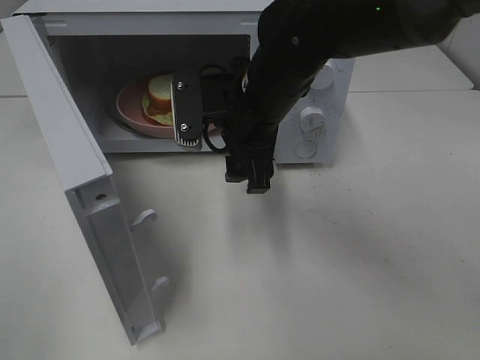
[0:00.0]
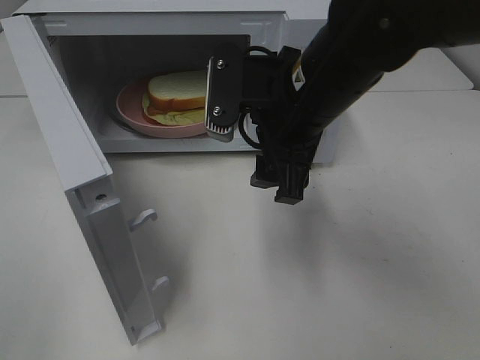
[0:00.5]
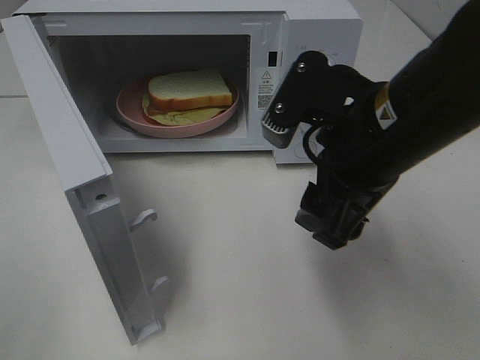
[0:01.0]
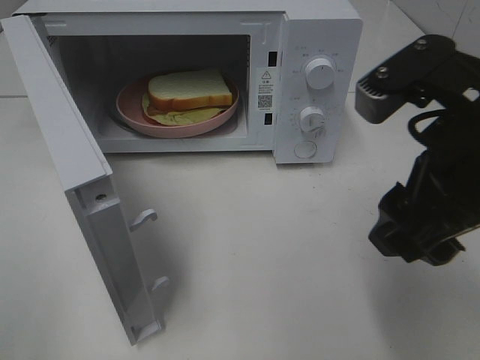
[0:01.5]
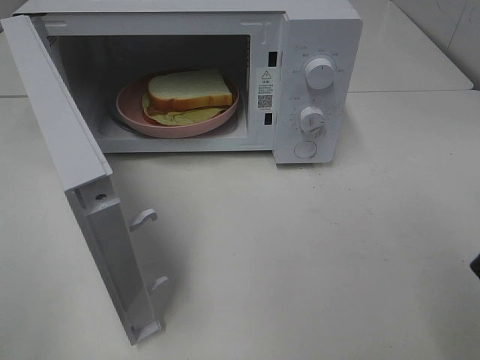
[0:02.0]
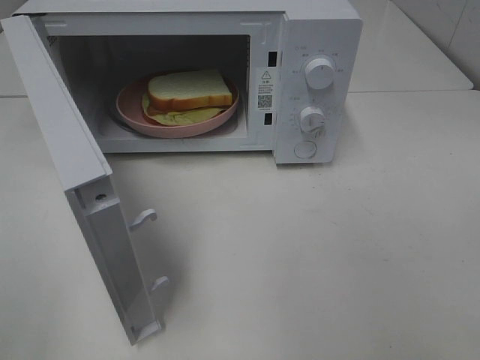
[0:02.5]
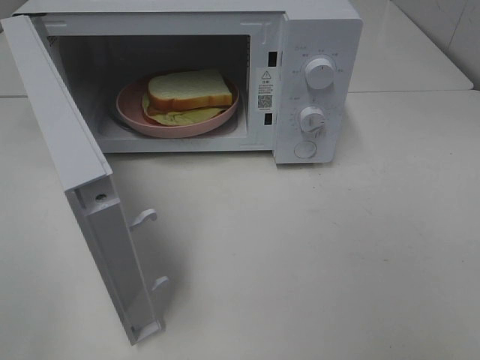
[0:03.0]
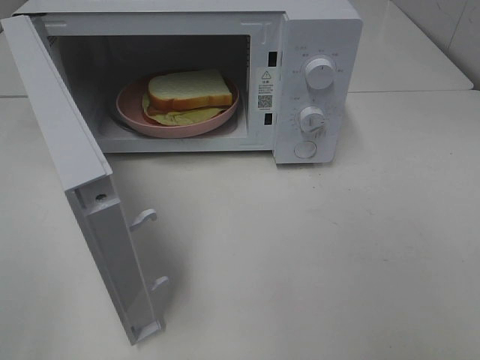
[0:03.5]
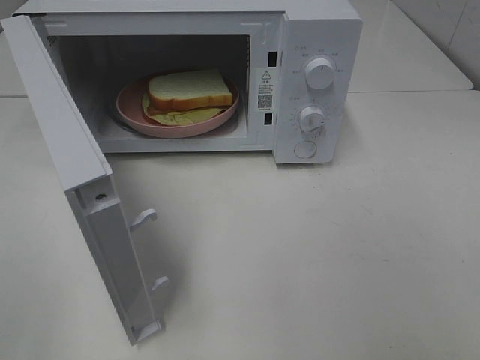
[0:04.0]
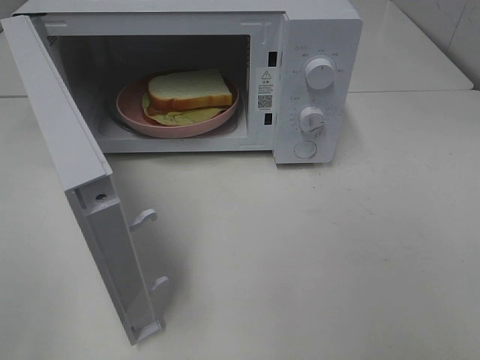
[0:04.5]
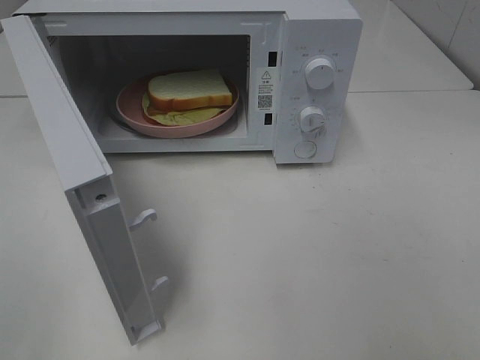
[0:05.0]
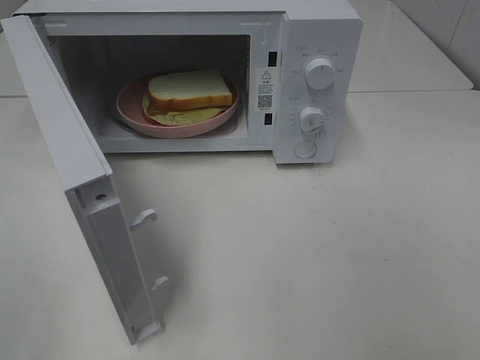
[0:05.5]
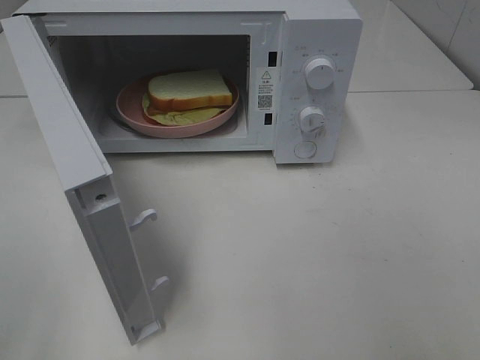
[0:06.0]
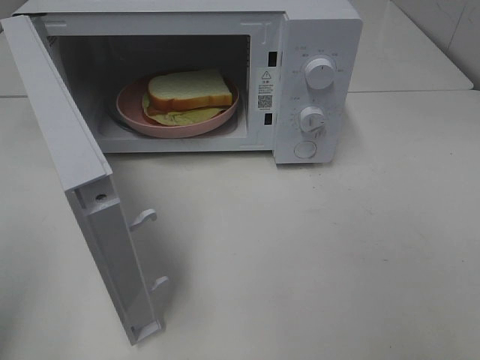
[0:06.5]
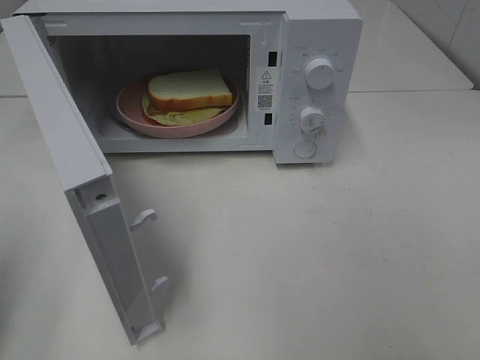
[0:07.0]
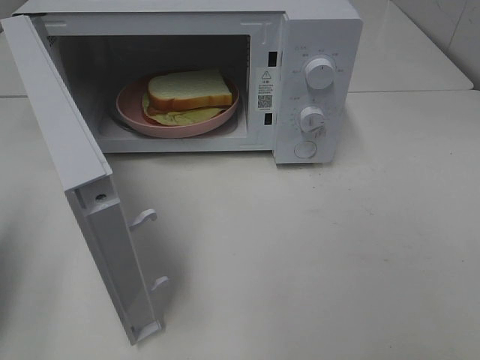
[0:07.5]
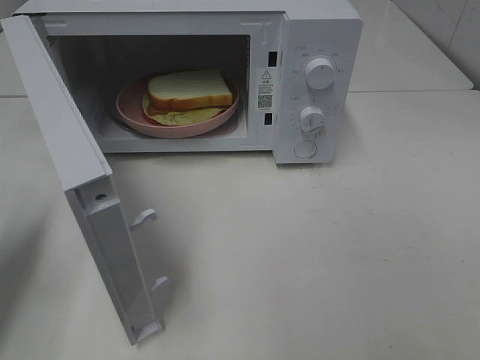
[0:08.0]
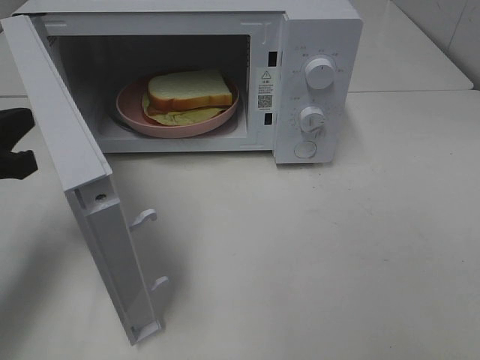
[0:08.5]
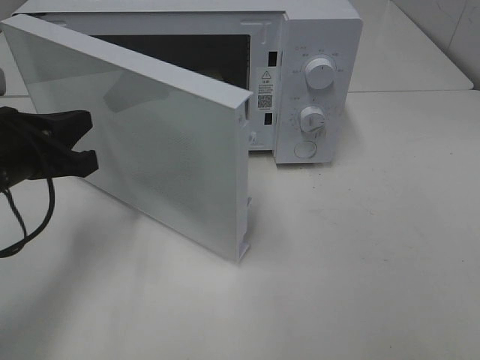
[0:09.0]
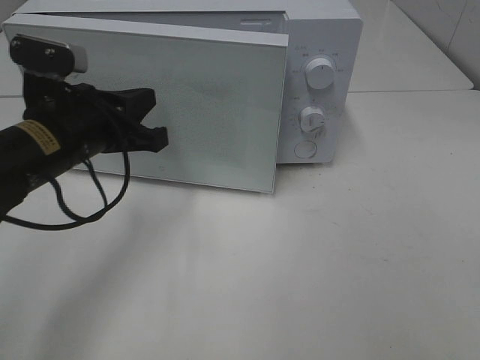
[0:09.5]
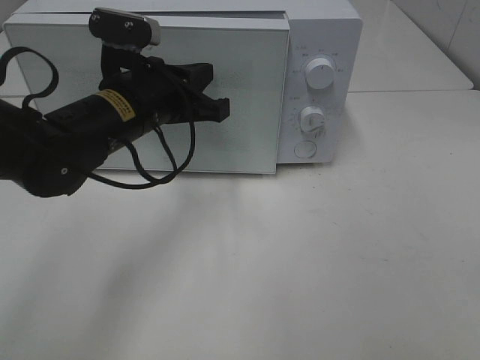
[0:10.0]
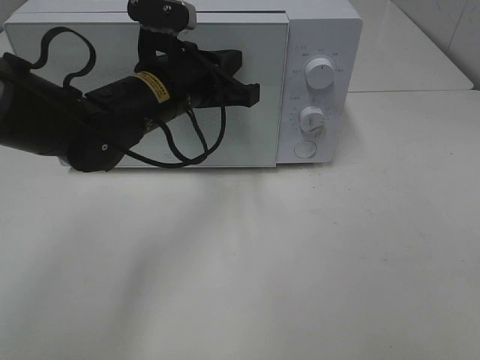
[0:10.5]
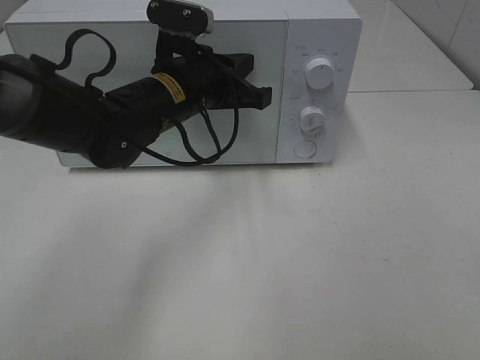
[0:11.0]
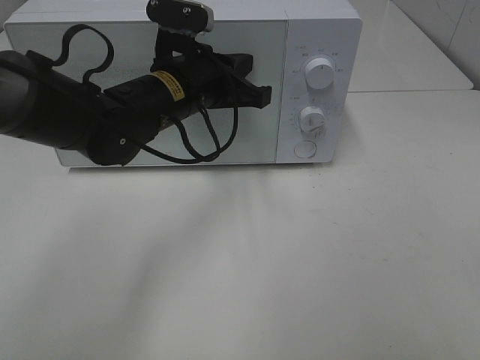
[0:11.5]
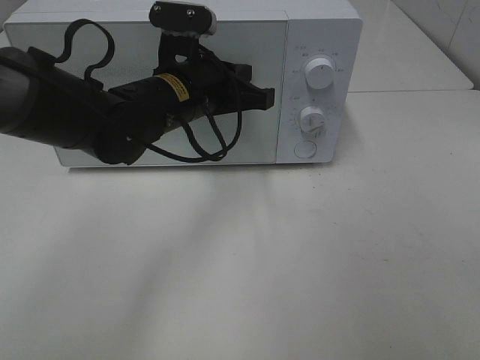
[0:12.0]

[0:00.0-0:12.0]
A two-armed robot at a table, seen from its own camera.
Task of the whole recording: Heat Sandwich.
Step, 0:00.0 to 0:12.0: Left hand: close the microwave door.
0:00.0 to 0:02.0: The right gripper shifts approximately 30 cm backward, to the right and upward.
0:02.0 to 0:04.0: The right gripper heads backward and to the right, covering approximately 15 cm.
0:06.0 to 0:08.0: The left gripper goes roughly 20 cm forward and downward, and closes up.
0:08.0 to 0:10.0: The left gripper is displaced to the right and forward by roughly 25 cm.
0:10.0 to 0:12.0: The left gripper moves roughly 5 cm.

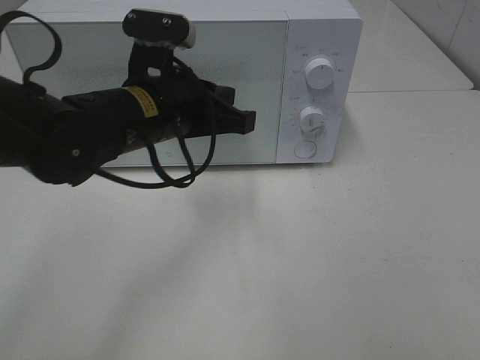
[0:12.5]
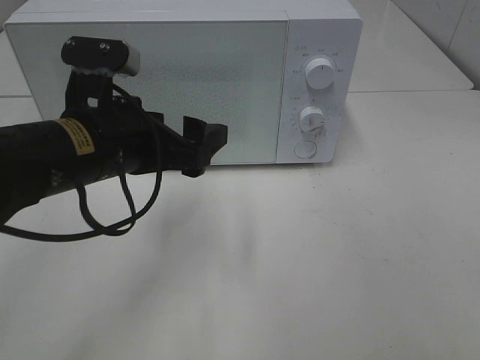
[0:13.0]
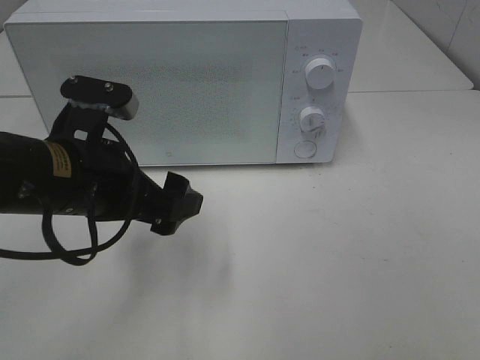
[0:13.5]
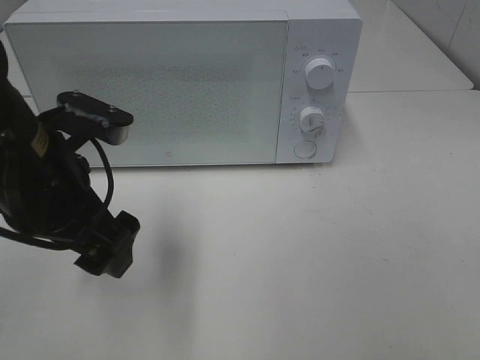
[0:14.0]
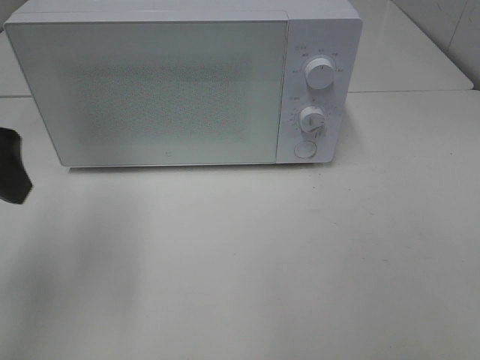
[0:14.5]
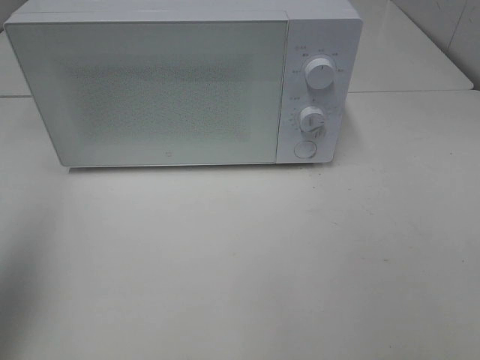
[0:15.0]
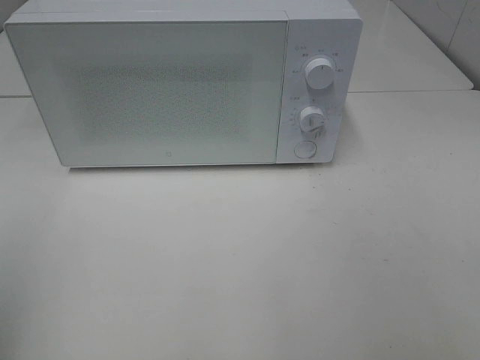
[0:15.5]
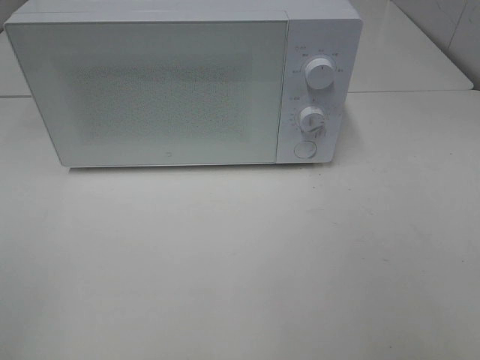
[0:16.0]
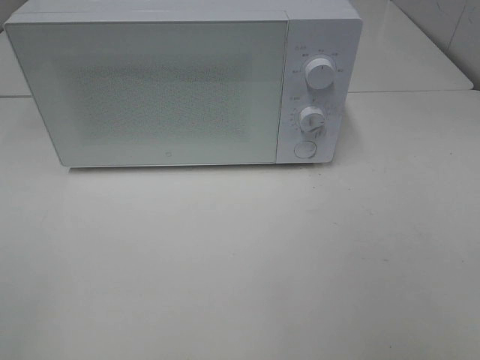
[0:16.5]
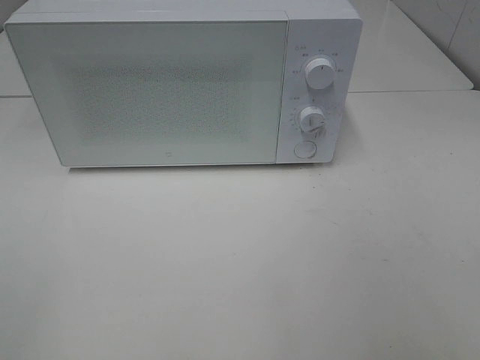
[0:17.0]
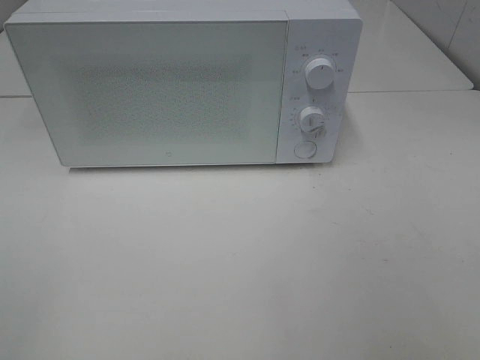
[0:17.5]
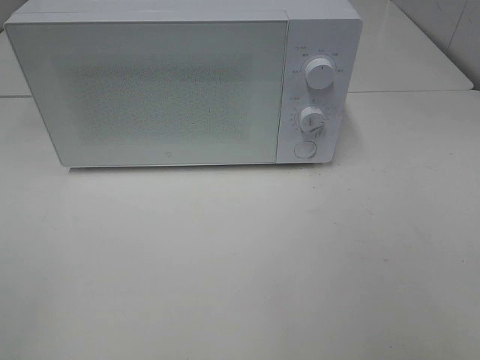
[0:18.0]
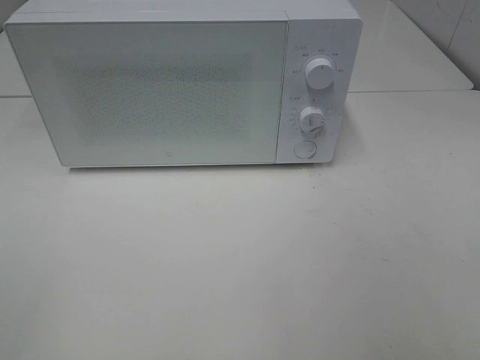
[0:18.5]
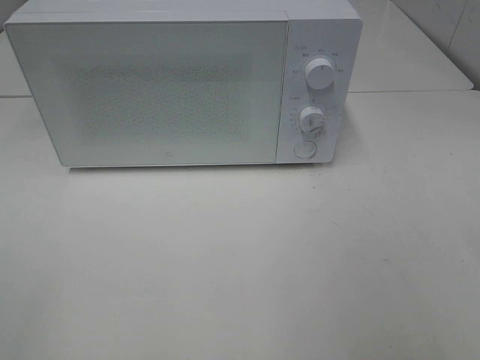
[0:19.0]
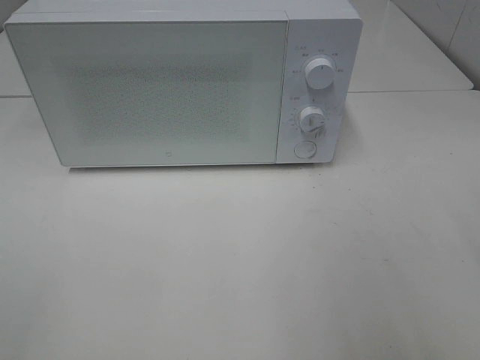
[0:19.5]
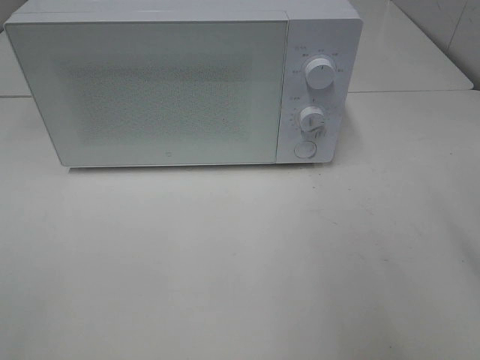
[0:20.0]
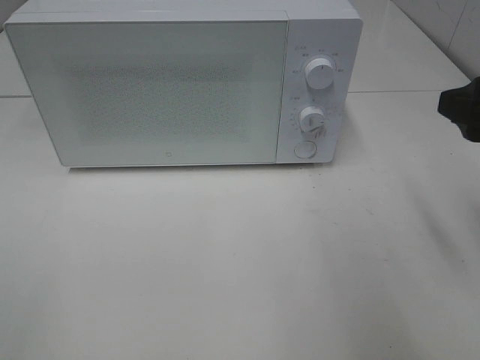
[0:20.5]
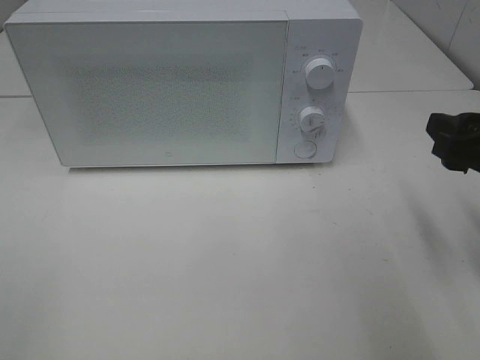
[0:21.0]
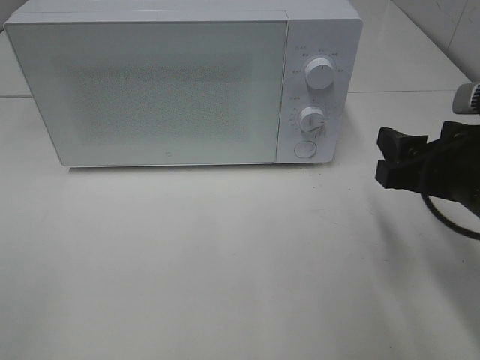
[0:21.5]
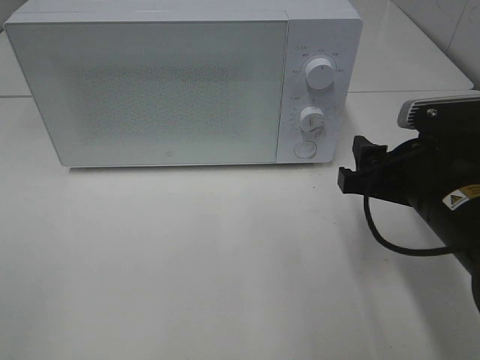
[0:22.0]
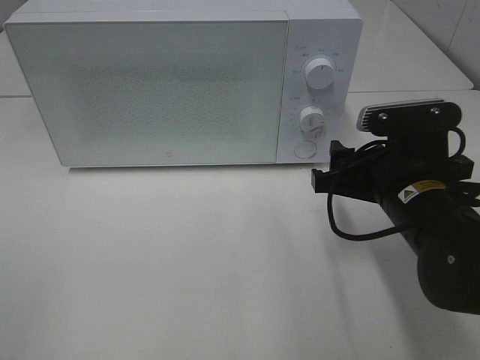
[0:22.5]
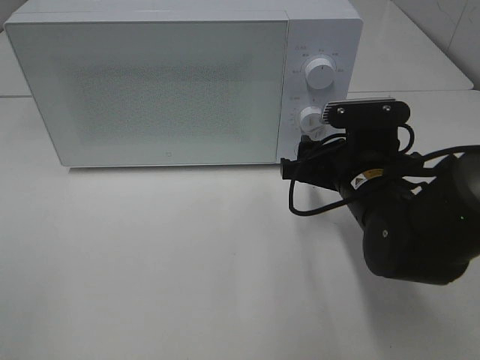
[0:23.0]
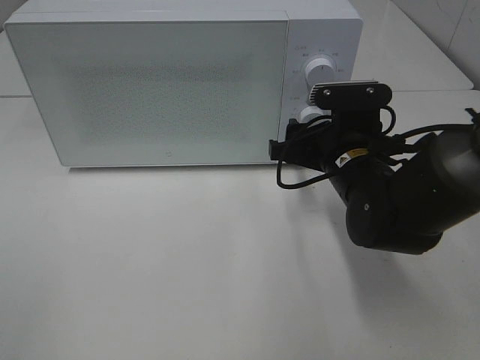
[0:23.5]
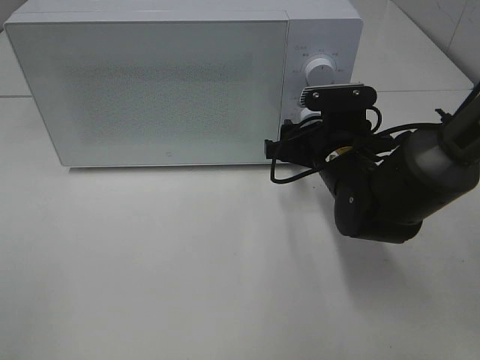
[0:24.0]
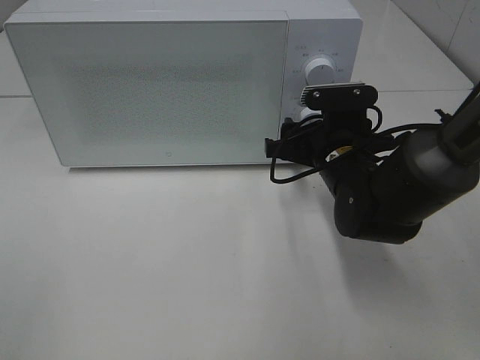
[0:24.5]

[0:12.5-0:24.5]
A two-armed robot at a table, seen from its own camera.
Task of the whole recording: Heat Sandwich.
0:12.5 to 0:14.5: The left gripper goes some 20 cm to the left, upward and backward, and opens its fingers.
0:14.5 to 0:16.5: The left gripper travels backward by some 20 cm.
0:16.5 to 0:18.5: Neither gripper changes place.
0:18.5 to 0:20.5: The right gripper goes approximately 20 cm forward.
0:20.5 to 0:22.5: The right gripper goes about 15 cm downward and to the left.
0:22.5 to 0:24.5: The right gripper goes about 10 cm forward.

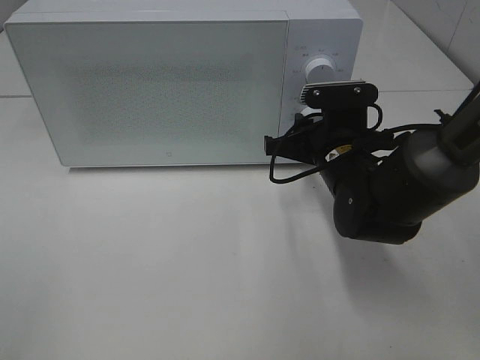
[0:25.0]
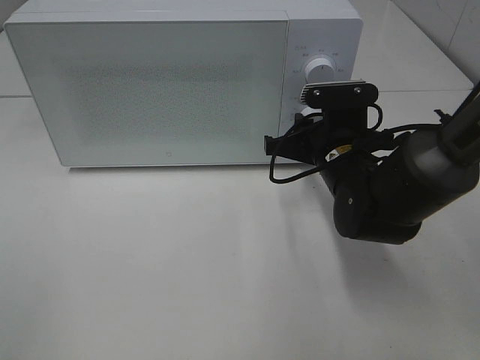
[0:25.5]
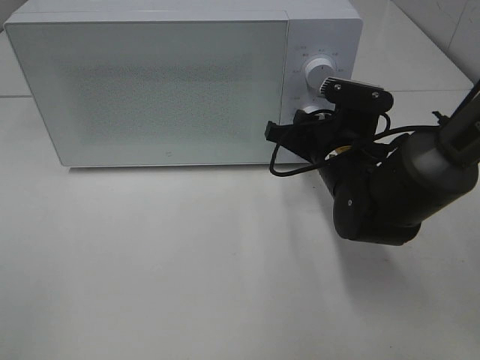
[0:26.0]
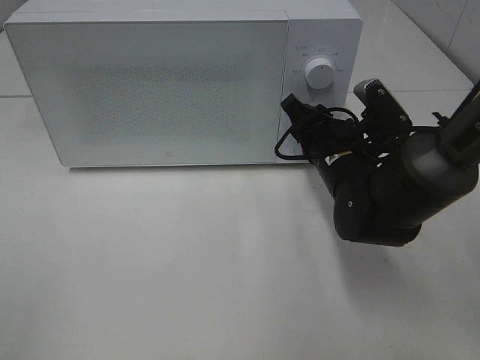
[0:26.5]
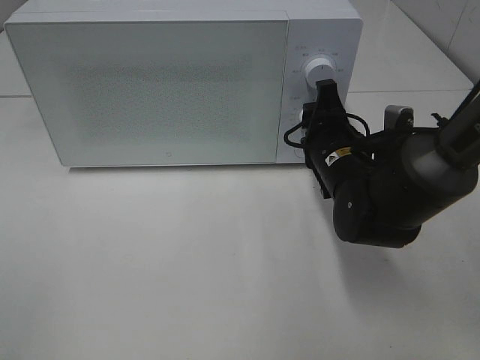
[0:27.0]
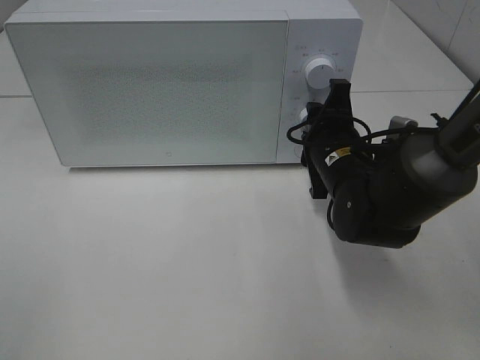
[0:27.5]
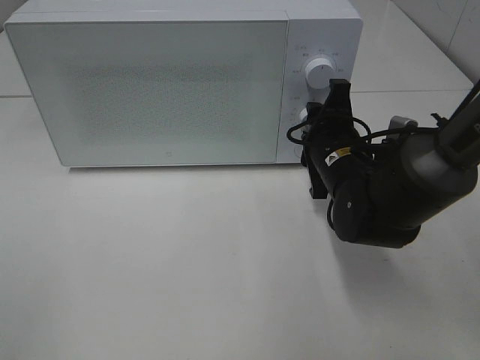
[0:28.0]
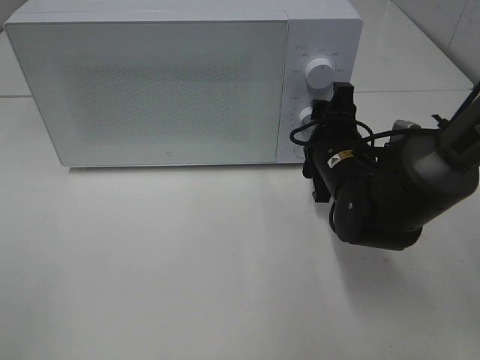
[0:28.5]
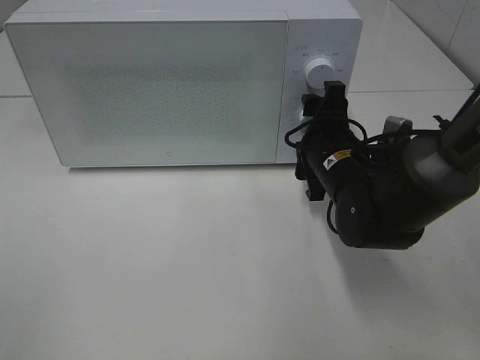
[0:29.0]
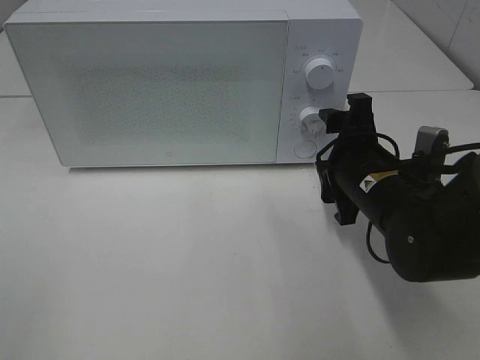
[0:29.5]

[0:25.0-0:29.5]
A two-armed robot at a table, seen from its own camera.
Task of the whole recording: Heat Sandwich.
Step, 0:25.0 to 0:28.5: Right hand: twist timer button.
0:27.0 to 0:29.5: The right gripper moves roughly 5 cm, and opens.
